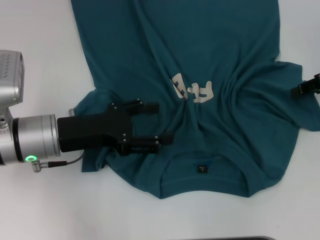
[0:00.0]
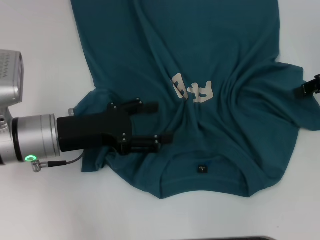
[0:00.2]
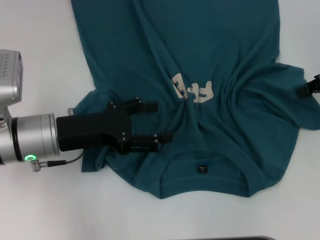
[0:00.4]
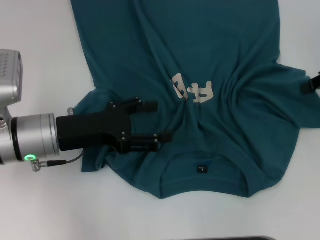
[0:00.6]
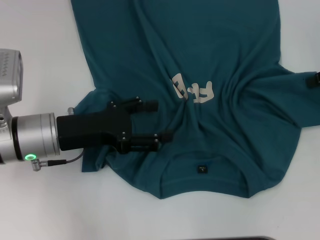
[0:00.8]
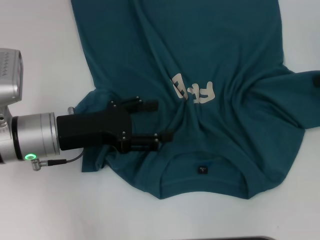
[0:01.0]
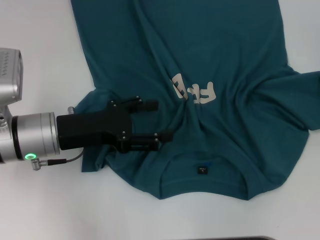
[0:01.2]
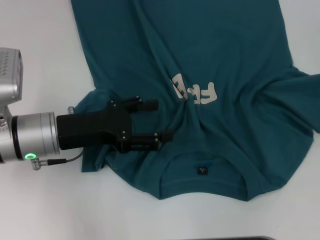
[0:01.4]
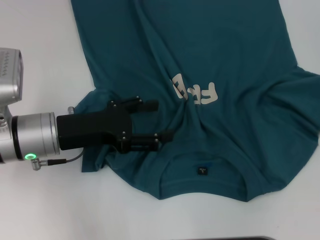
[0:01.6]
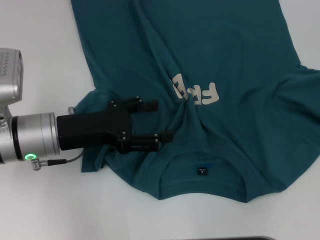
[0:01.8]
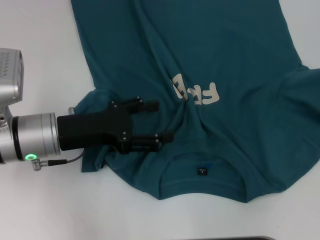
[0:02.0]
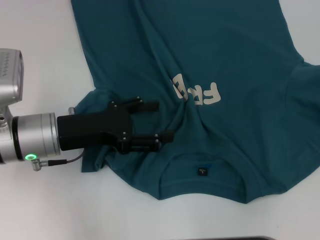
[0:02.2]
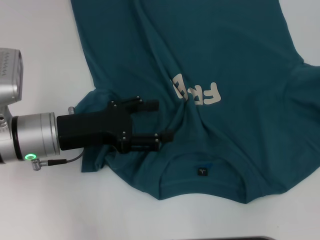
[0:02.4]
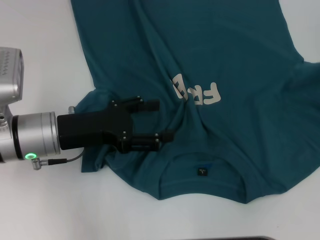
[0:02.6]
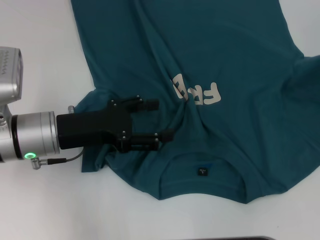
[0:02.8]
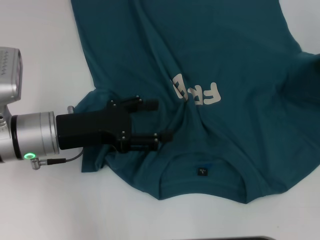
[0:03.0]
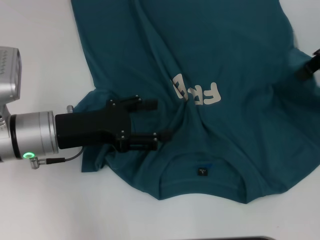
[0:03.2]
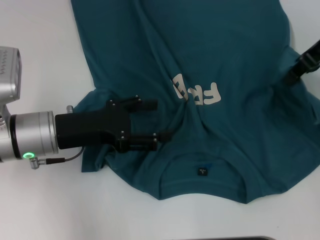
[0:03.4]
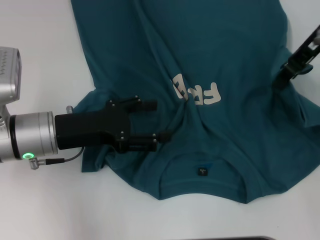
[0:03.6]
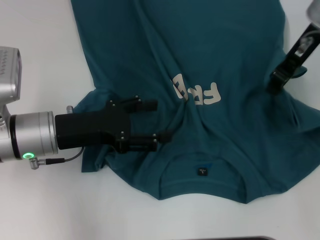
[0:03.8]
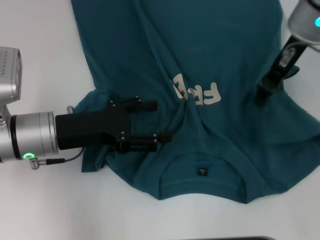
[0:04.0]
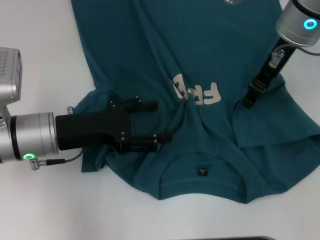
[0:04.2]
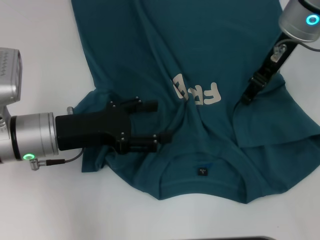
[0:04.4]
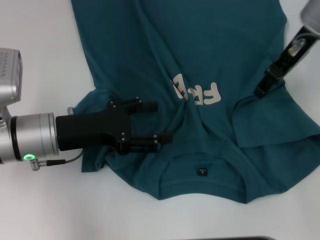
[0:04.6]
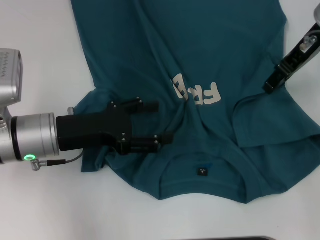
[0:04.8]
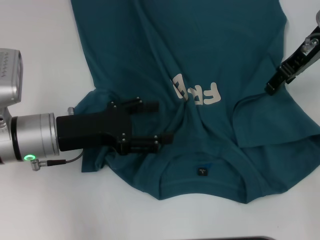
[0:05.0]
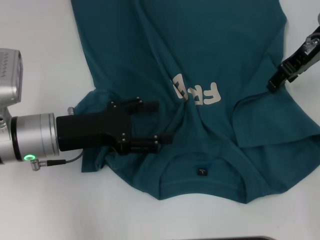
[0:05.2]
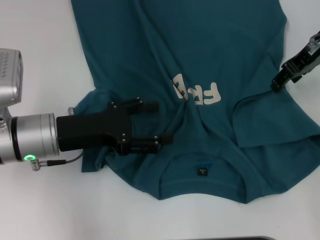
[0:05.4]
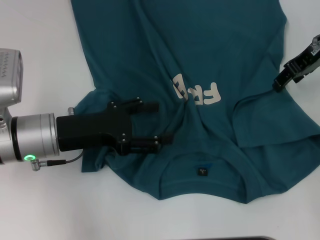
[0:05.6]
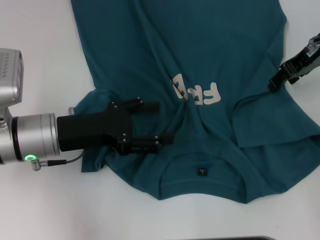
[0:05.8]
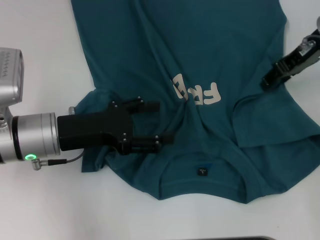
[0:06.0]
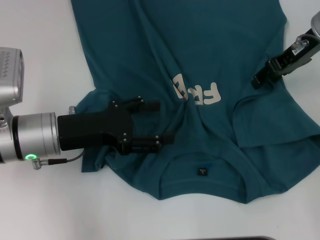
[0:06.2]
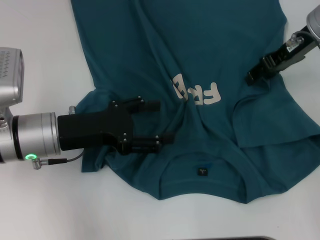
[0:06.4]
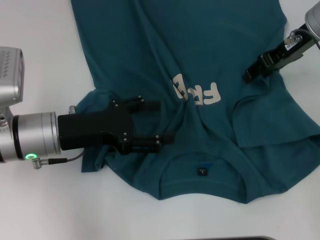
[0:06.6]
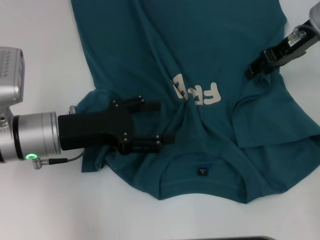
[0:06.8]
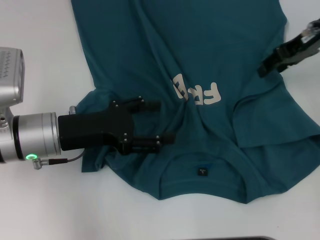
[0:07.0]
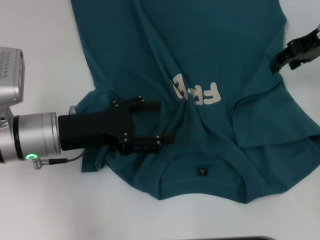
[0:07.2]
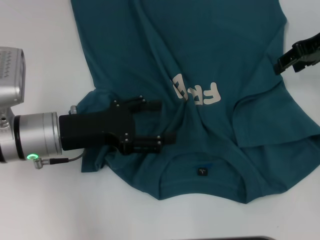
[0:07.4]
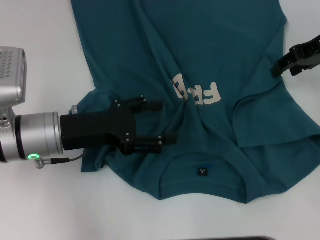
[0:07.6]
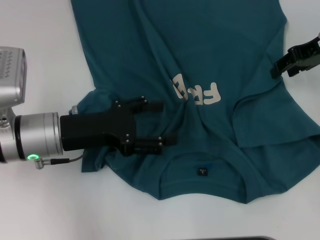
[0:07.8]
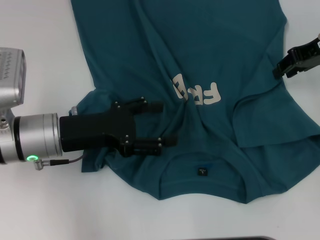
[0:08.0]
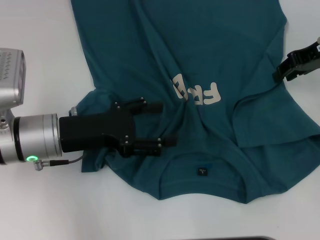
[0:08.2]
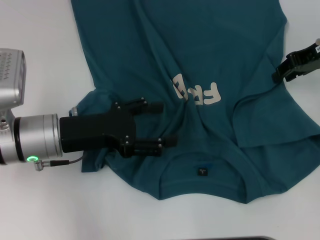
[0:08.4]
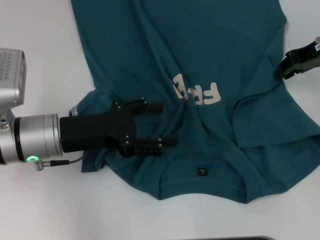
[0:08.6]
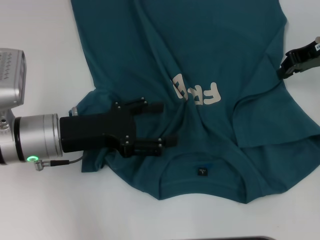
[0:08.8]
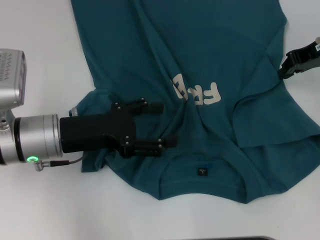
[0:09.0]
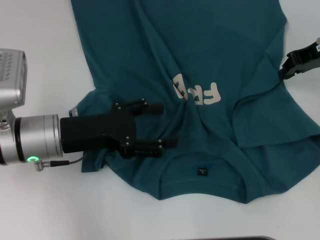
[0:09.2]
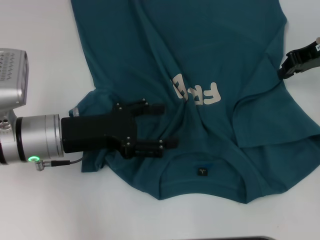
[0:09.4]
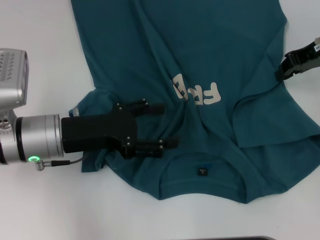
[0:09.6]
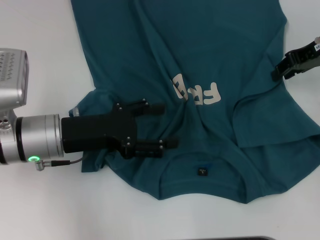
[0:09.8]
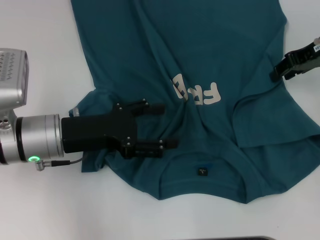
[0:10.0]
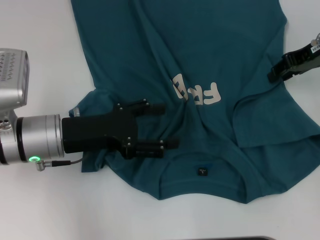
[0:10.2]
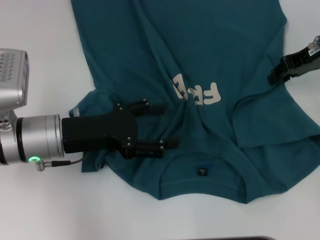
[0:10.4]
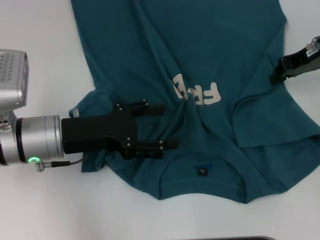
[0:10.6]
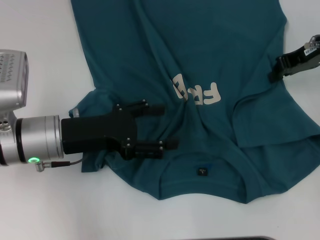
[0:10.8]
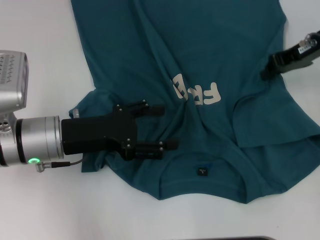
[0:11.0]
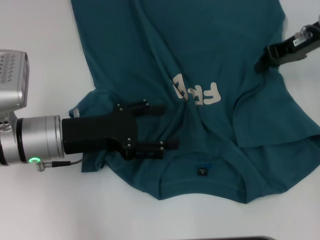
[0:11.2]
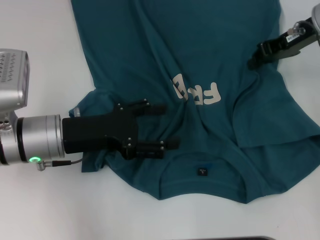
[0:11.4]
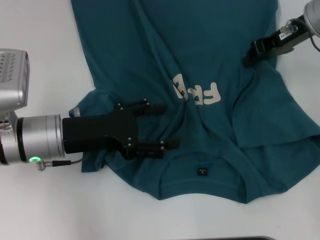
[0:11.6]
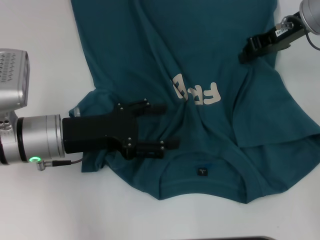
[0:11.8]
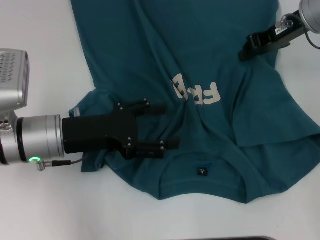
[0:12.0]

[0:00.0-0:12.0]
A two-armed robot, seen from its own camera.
0:00.0 to 0:01.6: The right gripper changes place by approximately 5 cm, and closes.
0:01.6 to 0:03.0: The right gripper moves to the left and upward, some 10 cm.
0:03.0 to 0:04.4: The right gripper is displaced to the left by about 15 cm.
0:04.4 to 0:06.0: The right gripper moves to the right, some 5 cm.
0:06.0 to 0:07.6: The grippers stay close to where they were, moving slightly.
0:07.6 to 0:09.0: The right gripper closes its fingers.
0:09.0 to 0:10.4: Neither gripper changes place.
0:10.4 to 0:12.0: The right gripper changes place by about 5 cm, and closes its fingers.

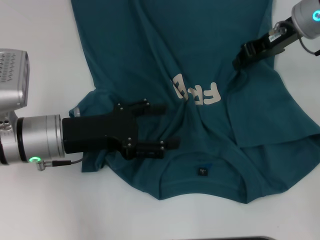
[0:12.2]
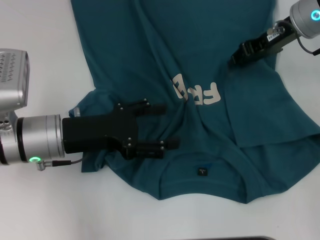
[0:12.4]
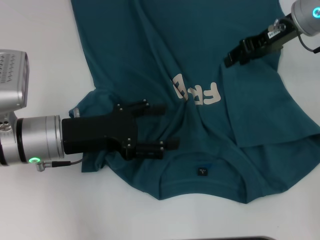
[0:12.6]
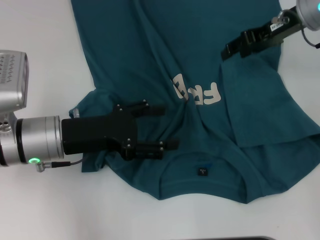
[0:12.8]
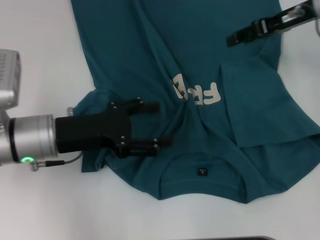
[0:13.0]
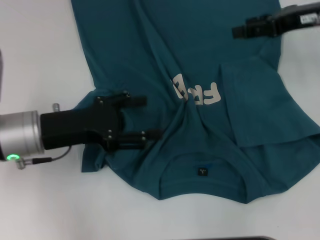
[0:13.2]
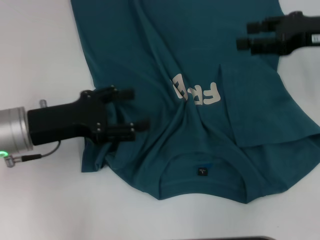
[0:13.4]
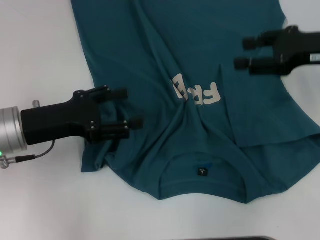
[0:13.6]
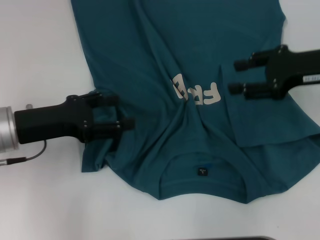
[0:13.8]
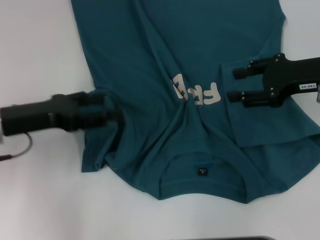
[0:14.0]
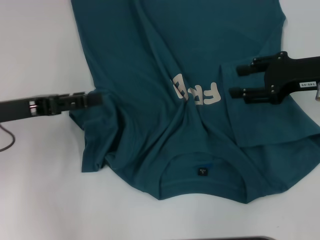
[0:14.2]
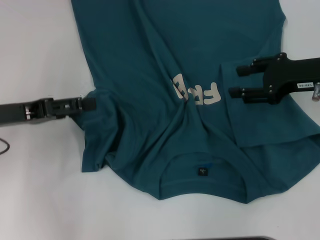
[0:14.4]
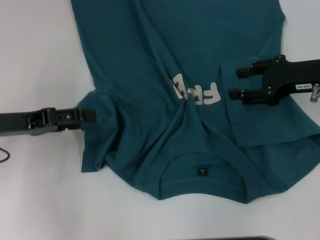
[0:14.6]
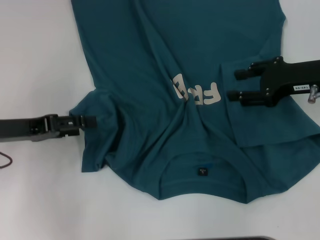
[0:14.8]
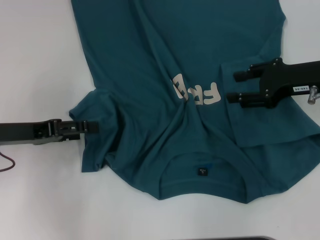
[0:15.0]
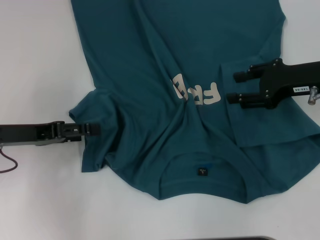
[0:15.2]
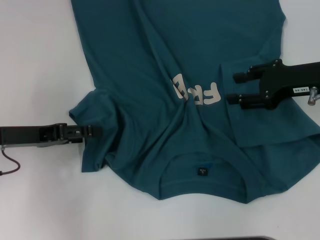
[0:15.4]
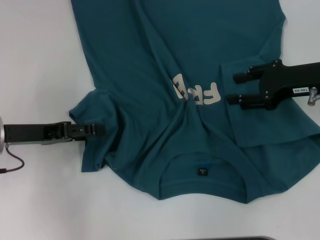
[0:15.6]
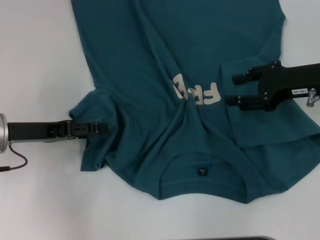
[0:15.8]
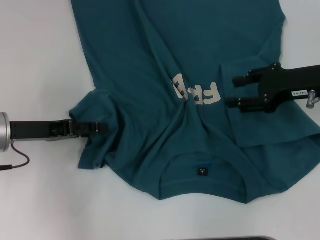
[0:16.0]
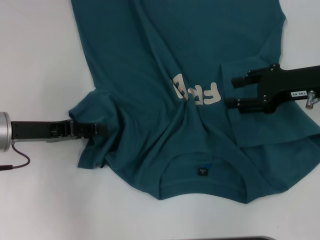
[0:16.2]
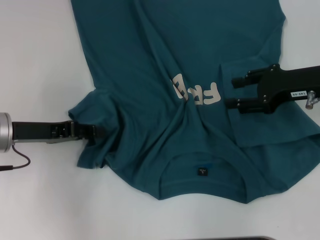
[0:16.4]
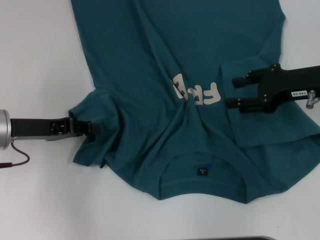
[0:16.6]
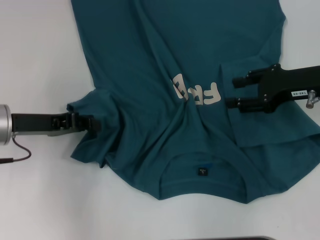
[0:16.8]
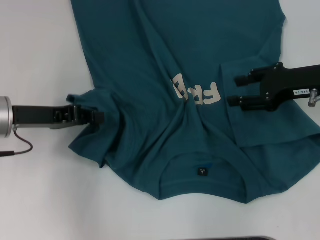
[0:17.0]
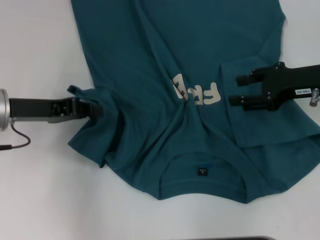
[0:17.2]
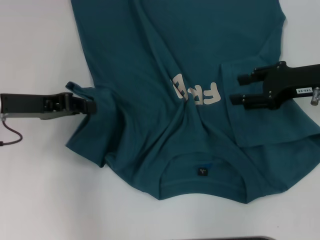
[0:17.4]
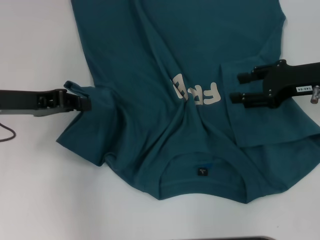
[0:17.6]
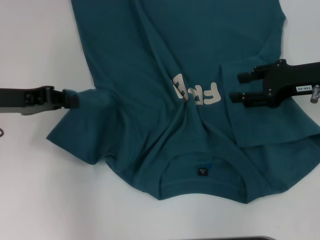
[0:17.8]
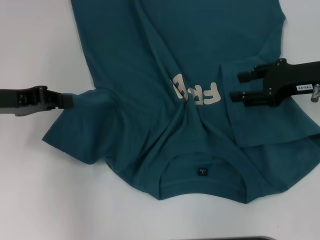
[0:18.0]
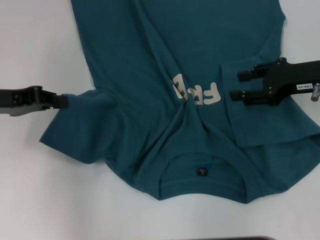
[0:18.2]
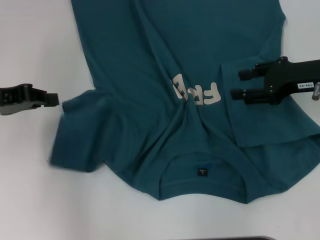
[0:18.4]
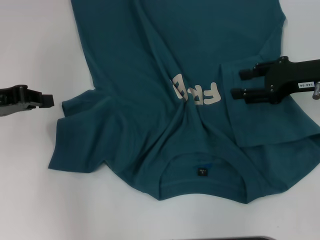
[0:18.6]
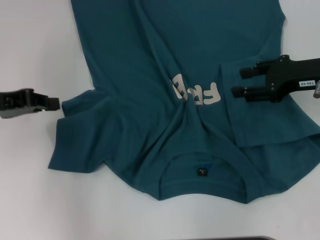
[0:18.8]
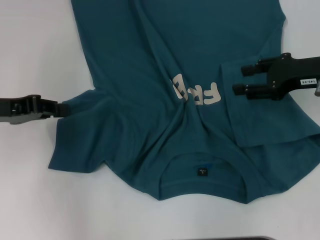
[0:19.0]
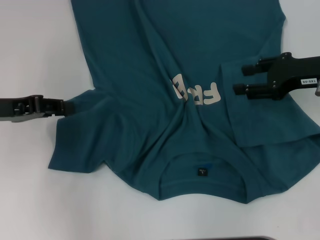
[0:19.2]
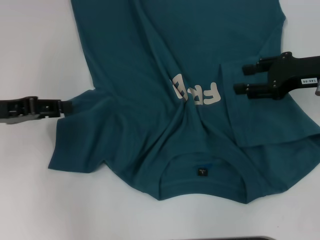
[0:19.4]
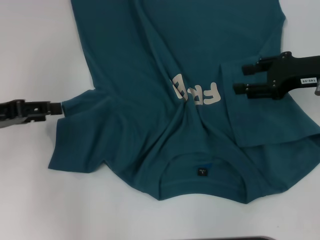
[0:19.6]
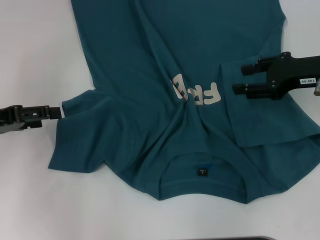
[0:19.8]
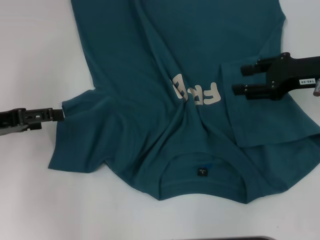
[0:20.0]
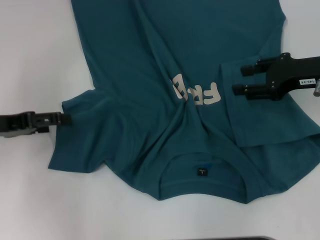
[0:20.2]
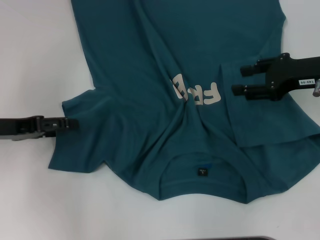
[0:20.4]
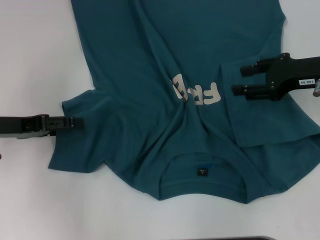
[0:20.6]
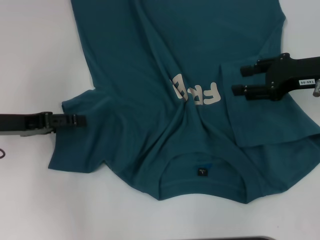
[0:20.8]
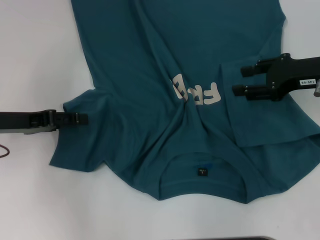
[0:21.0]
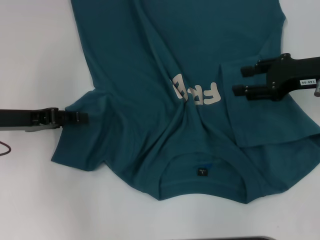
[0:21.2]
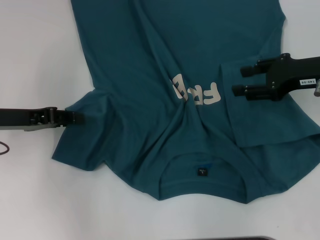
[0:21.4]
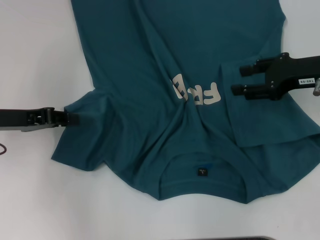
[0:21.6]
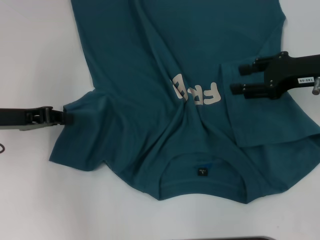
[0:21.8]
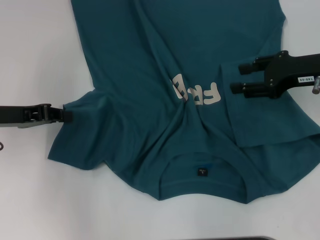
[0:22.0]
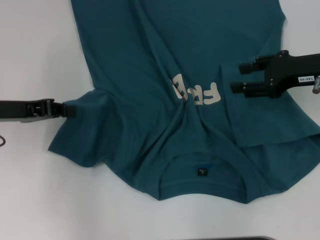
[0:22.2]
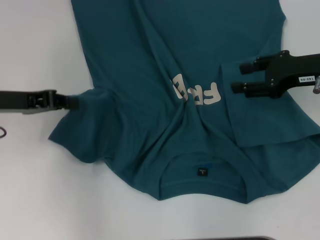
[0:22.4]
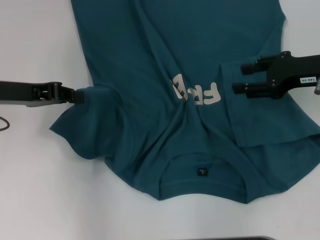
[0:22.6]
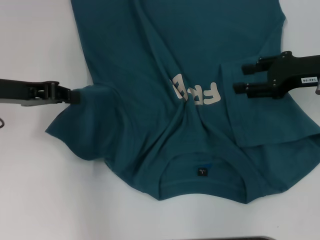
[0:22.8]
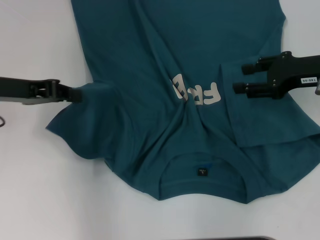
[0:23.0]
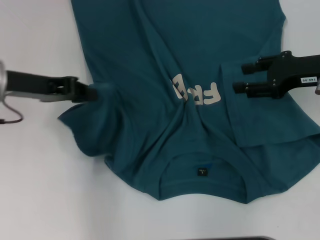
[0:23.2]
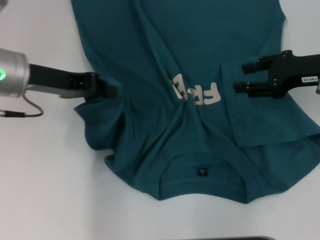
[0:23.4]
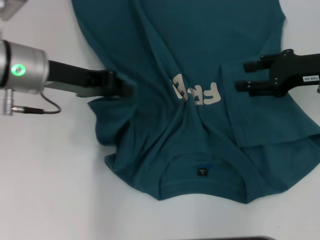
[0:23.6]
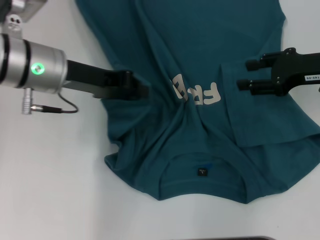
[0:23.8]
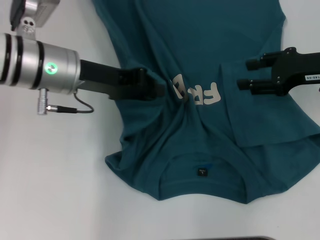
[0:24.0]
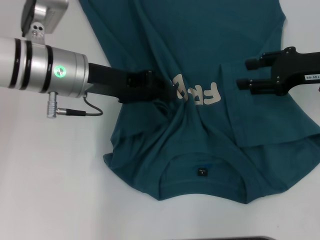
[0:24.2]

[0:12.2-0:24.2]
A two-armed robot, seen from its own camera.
0:12.2 to 0:13.8: The right gripper is displaced backward and to the right by roughly 10 cm, and opens up. The left gripper moves to the left, roughly 5 cm.
0:15.2 to 0:16.6: The left gripper closes its fingers.
0:16.6 to 0:18.2: The left gripper shifts approximately 5 cm upward, and closes.
0:18.2 to 0:19.8: The left gripper opens up.
0:19.8 to 0:21.2: The left gripper moves some 5 cm.
0:21.2 to 0:22.6: The left gripper ends up approximately 5 cm from where it was, and closes its fingers.
0:22.6 to 0:24.2: The left gripper is displaced to the right by roughly 10 cm.
